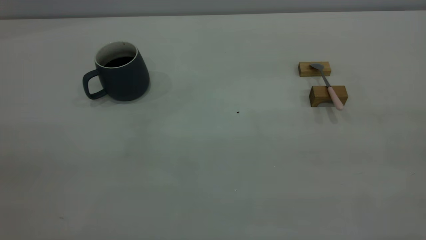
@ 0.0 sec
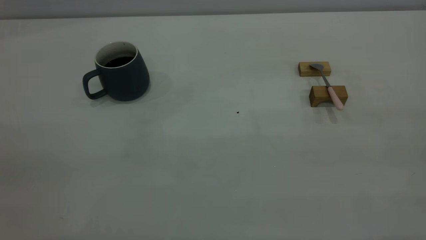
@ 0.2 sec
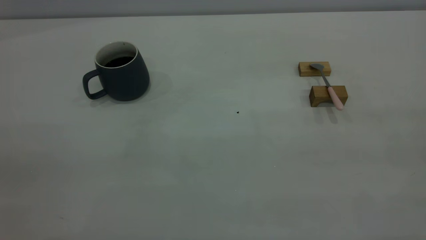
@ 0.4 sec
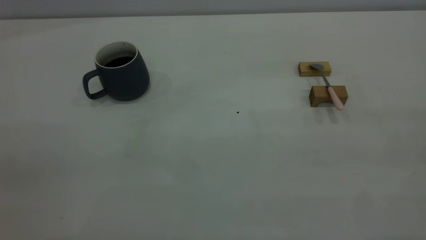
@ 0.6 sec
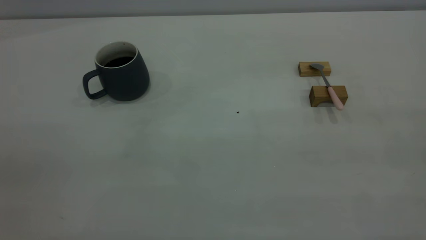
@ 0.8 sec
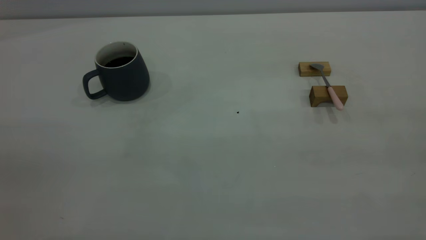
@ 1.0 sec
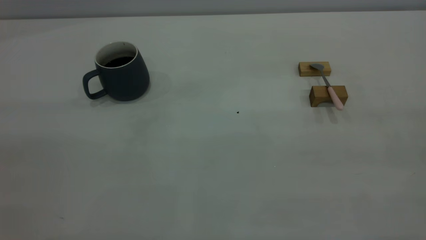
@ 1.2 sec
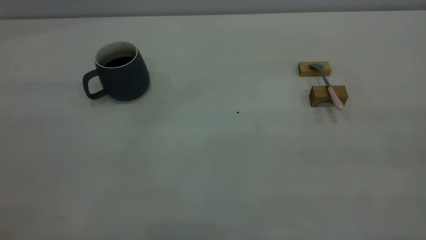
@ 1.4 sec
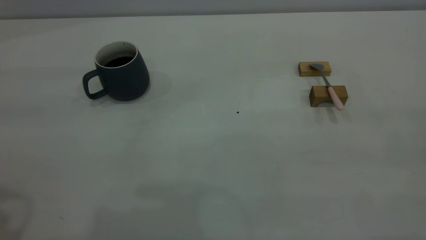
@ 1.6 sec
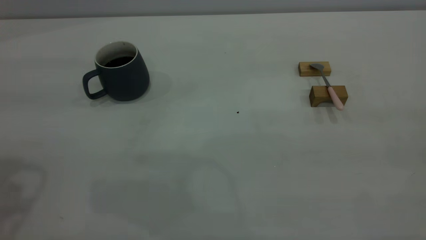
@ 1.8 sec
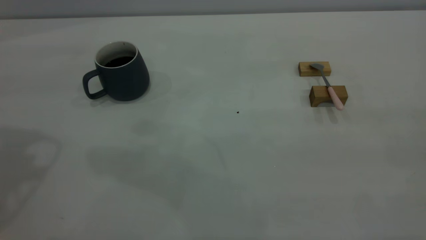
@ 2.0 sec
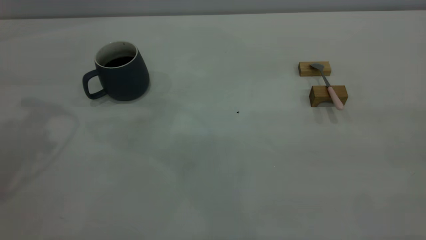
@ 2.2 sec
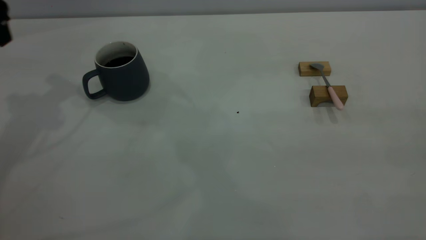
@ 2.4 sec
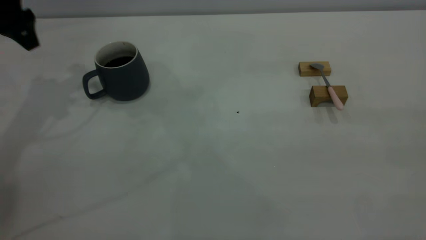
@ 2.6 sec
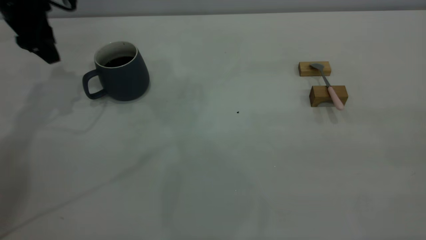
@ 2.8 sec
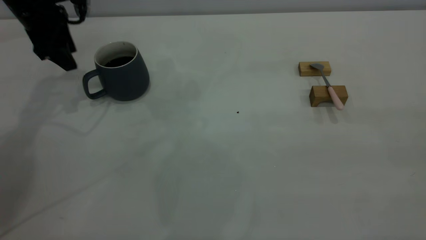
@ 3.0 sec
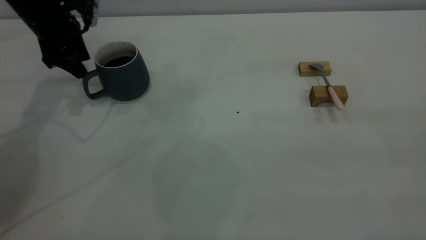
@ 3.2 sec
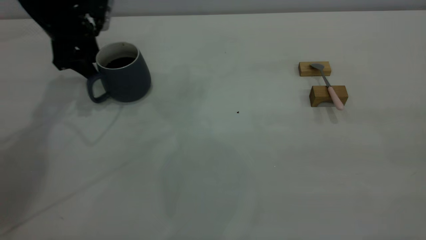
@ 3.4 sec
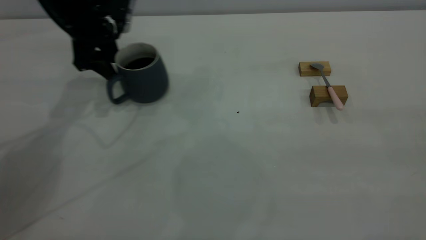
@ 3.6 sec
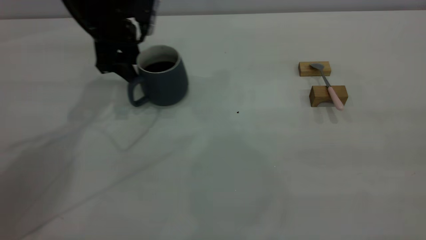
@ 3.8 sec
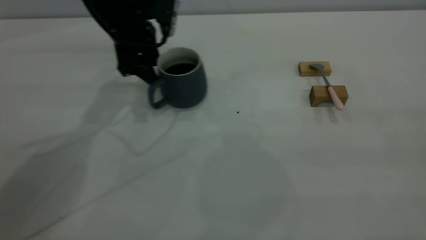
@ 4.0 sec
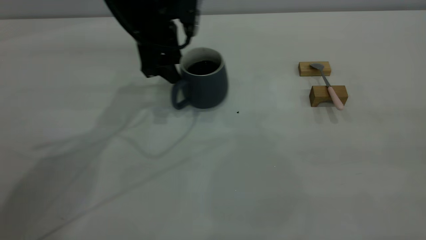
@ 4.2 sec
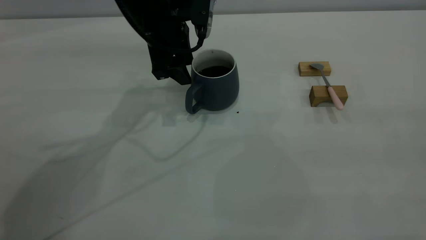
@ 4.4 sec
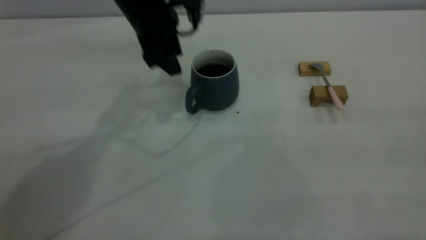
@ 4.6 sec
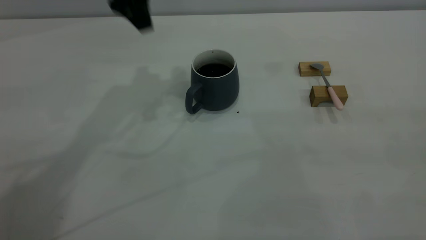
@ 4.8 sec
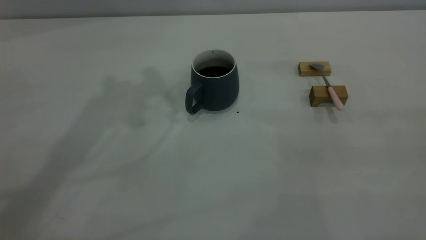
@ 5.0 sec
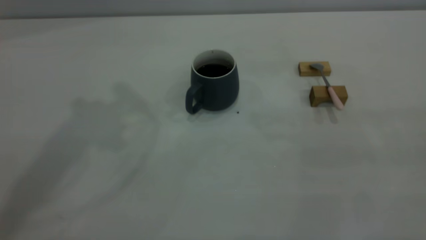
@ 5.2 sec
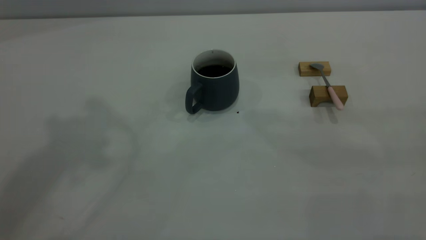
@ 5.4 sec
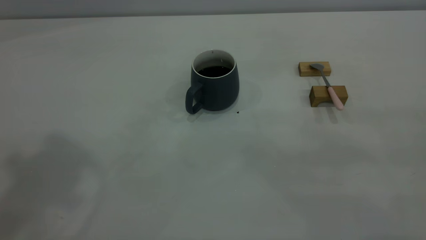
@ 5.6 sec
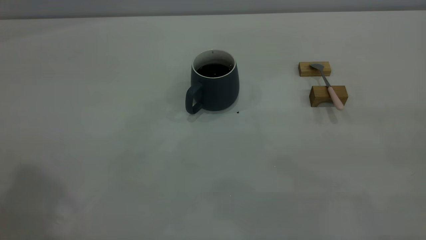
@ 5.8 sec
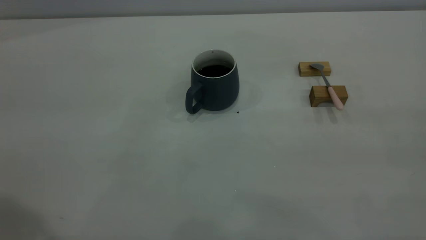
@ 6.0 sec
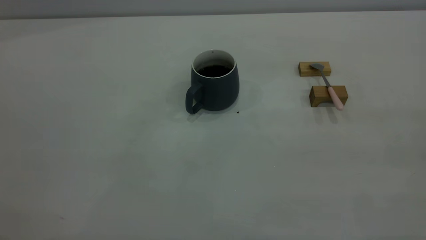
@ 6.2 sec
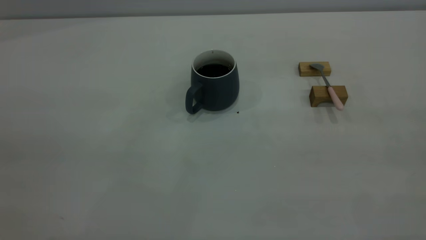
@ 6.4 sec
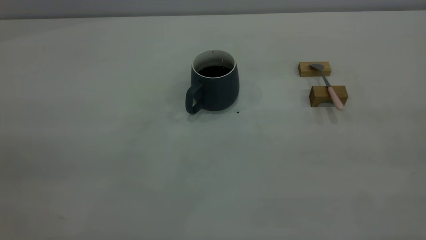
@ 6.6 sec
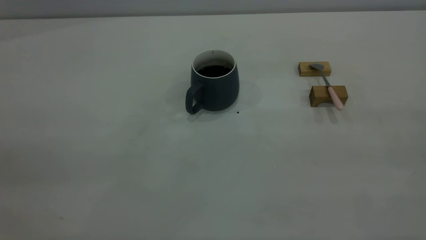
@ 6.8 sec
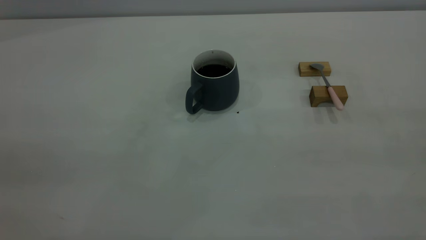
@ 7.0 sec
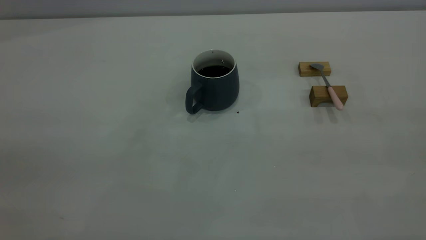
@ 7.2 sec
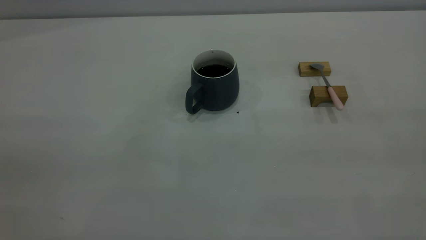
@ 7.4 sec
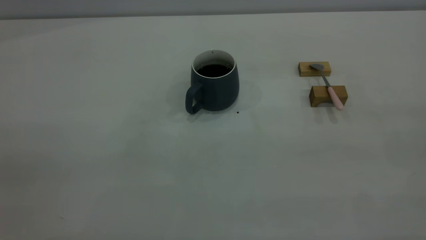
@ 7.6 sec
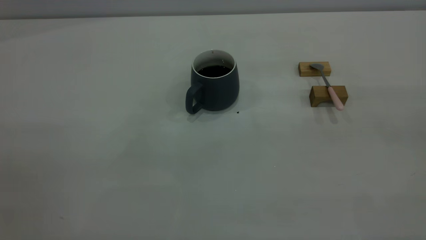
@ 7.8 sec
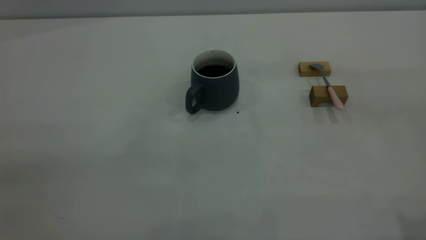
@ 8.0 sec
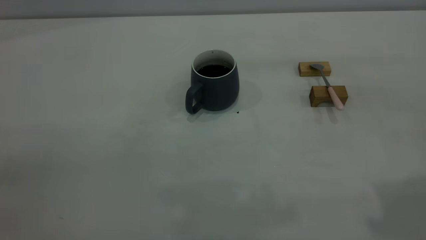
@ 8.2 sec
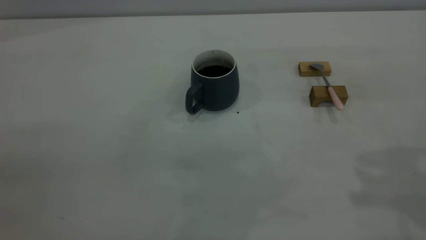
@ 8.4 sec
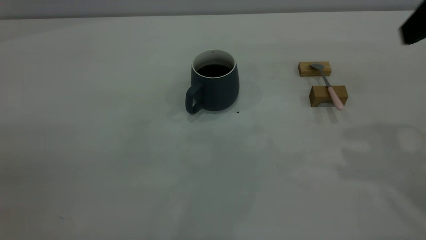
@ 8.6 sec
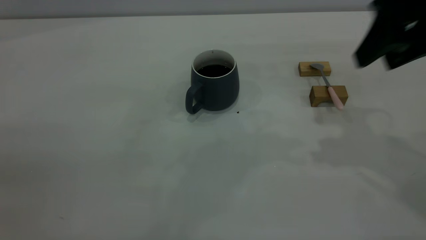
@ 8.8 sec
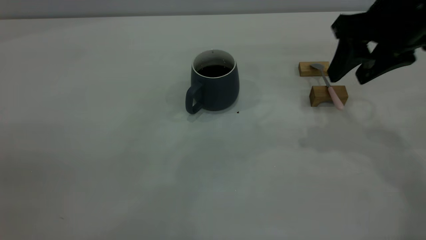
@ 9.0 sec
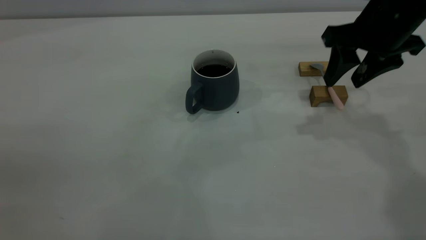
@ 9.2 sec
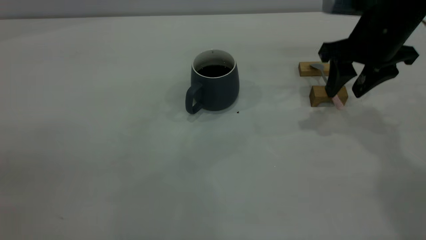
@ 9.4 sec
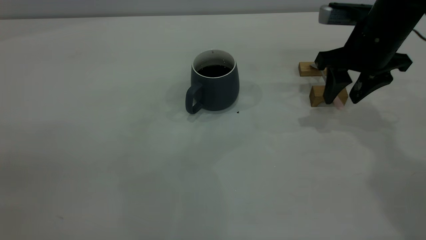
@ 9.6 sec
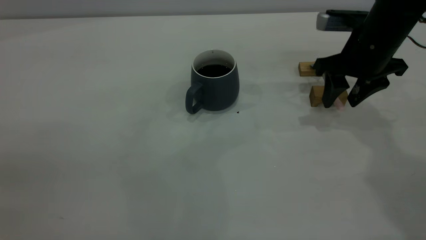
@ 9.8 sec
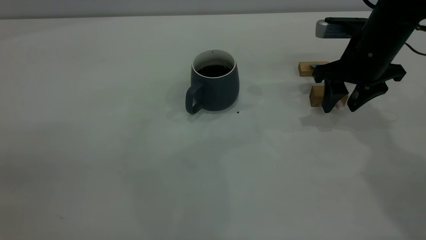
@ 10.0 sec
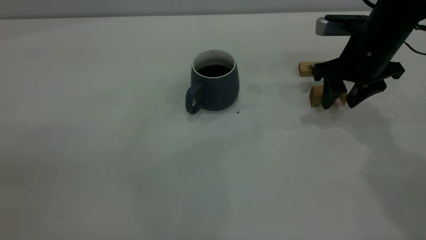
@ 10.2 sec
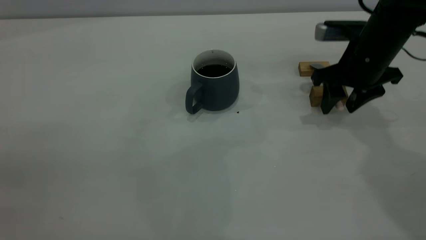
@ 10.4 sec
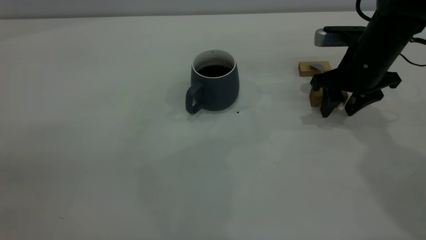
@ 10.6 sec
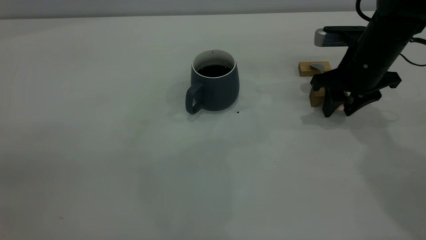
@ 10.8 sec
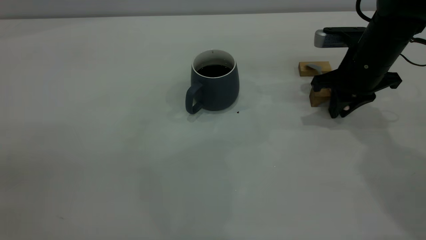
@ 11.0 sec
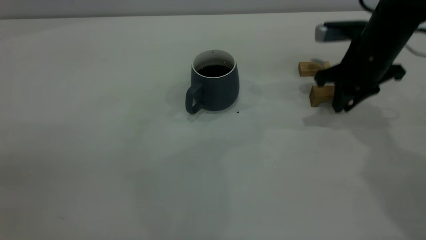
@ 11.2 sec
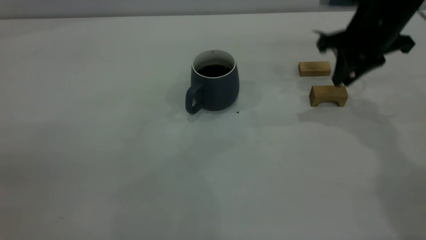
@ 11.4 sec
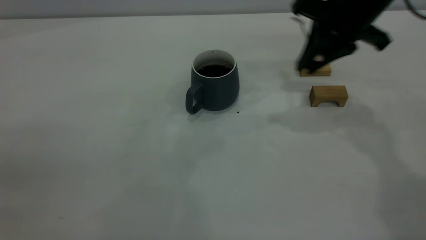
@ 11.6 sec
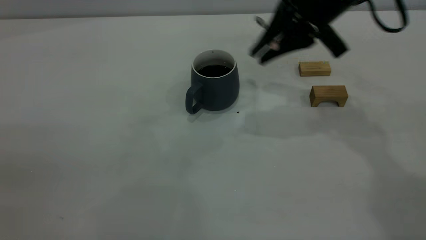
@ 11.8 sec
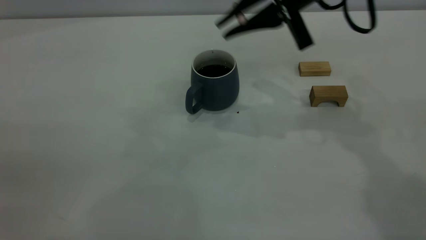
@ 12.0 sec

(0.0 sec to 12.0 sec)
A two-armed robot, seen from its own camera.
Step, 0.0 sec - 4.6 sec: Move the cup with coffee to the center of view.
Step, 4.8 sec - 11.4 sec: Pick up the spoon.
1.6 sec - 3.0 sec: The left gripper shifts some 35 cm forward and downward.
3.0 sec - 4.4 sec: The left gripper travels to the right by about 20 cm.
4.4 sec - 6.0 sec: The left gripper shifts roughly 50 cm backward, upward and to the left.
7.6 sec - 9.0 sec: The right gripper moves forward and downward, about 35 cm, and opens.
9.0 sec - 10.4 sec: The right gripper heads downward and forward, covering roughly 10 cm.
10.4 sec - 12.0 sec: The right gripper shifts approximately 15 cm upward and to the left, and closes.

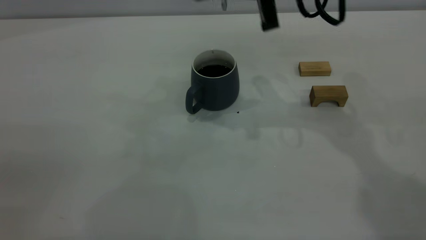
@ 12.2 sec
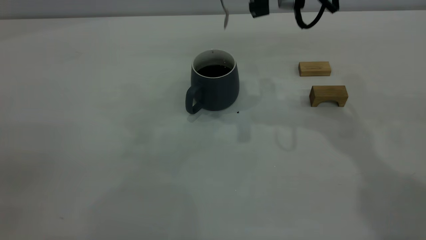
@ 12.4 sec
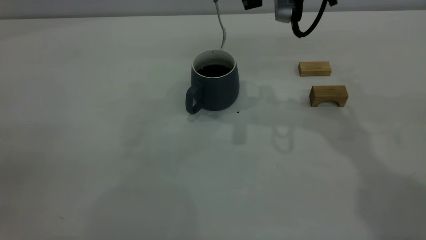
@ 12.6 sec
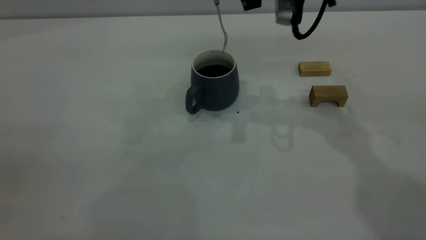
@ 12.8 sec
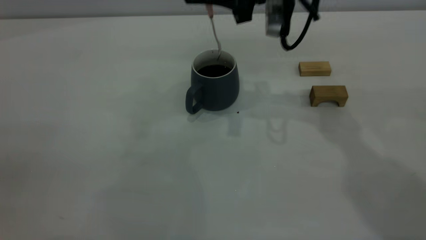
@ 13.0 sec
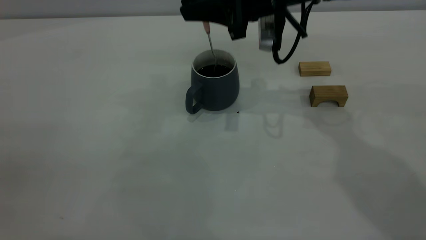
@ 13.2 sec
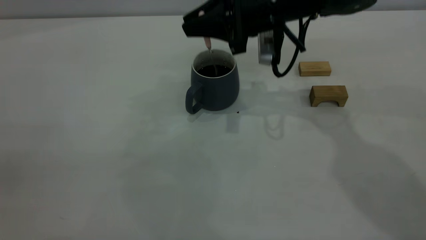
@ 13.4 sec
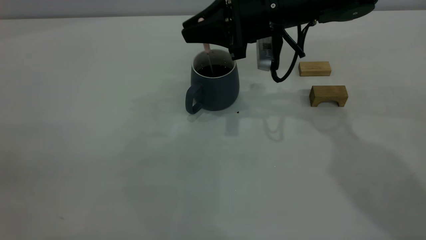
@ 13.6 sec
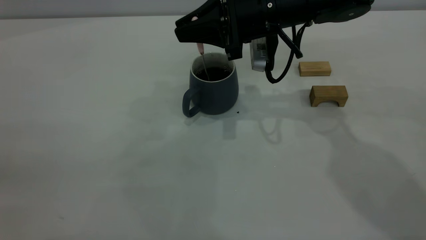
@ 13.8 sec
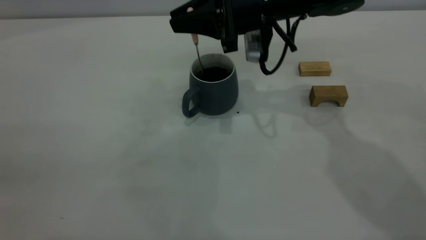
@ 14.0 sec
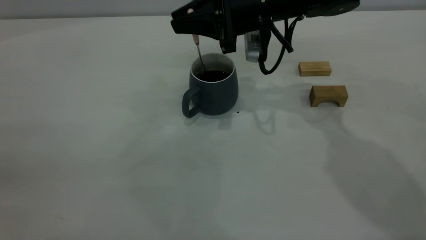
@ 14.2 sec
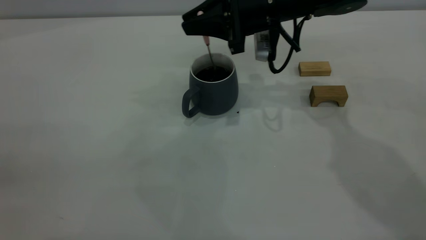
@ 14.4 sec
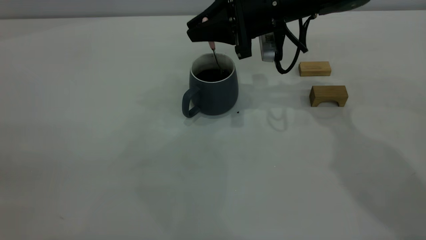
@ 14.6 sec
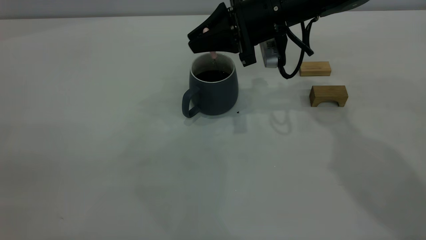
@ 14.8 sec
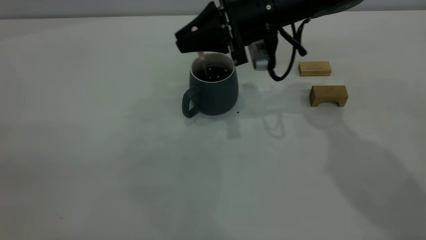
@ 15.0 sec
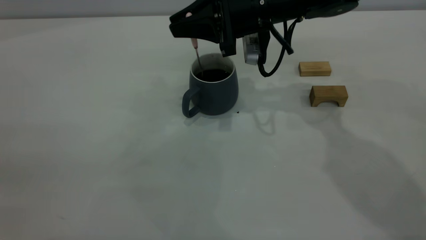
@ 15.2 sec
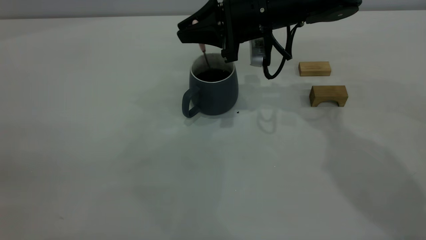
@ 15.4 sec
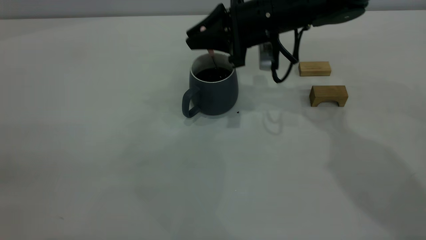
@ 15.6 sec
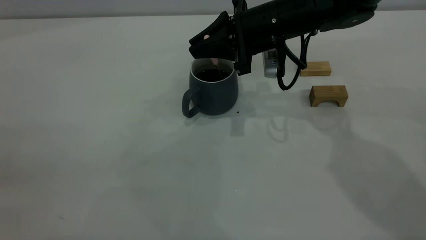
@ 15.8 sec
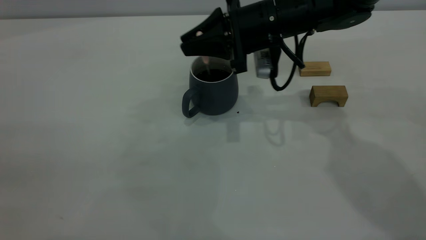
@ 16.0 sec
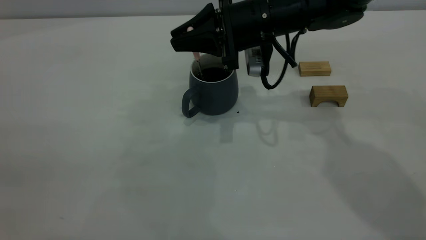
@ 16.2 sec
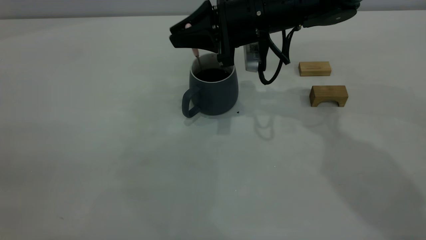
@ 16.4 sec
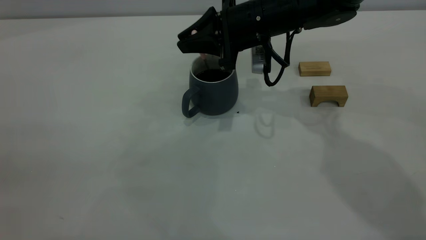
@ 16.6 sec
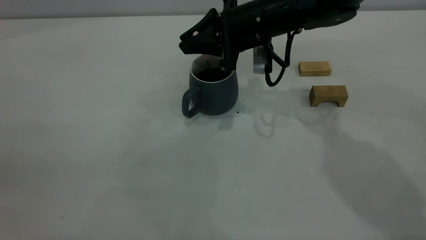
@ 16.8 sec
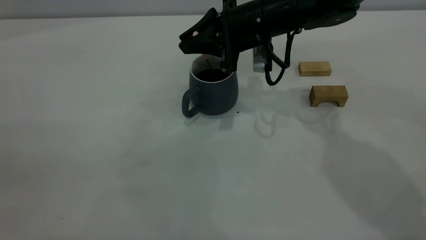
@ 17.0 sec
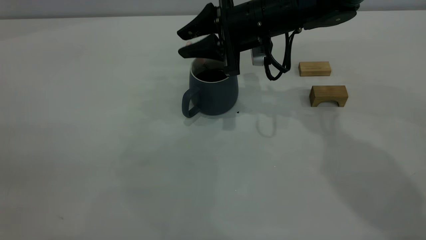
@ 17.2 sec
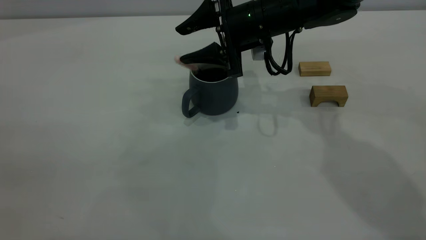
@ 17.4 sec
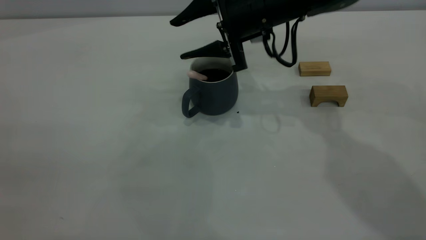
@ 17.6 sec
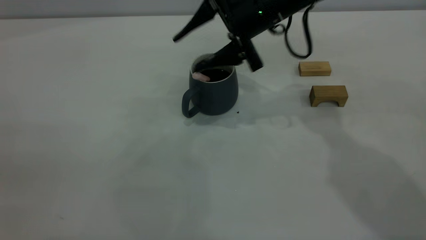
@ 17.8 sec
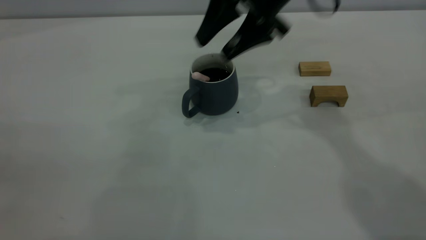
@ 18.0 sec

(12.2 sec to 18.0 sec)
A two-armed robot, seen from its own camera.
Step, 12.2 sec - 18.0 sec: Stir the coffee in the cup.
12.2 sec - 13.6 sec: The right gripper moves downward, approximately 10 cm.
13.6 sec - 16.6 sec: The grippers stay close to where they were, moving slightly.
16.6 sec - 18.0 sec: The right gripper shifts some 10 cm upward, and opens up.
